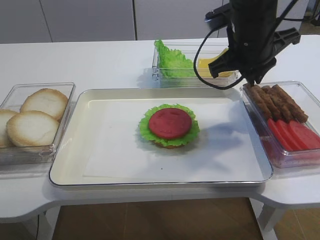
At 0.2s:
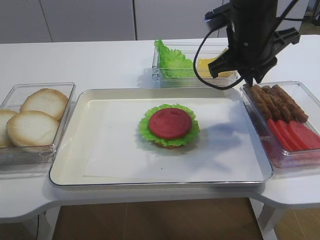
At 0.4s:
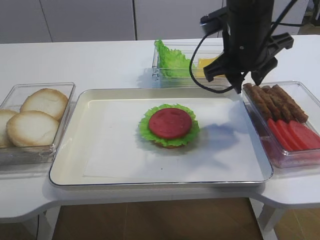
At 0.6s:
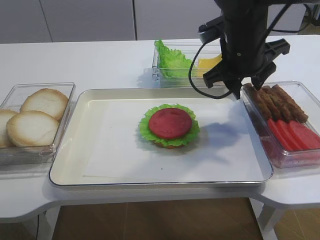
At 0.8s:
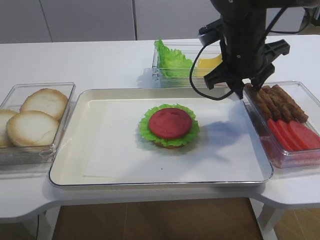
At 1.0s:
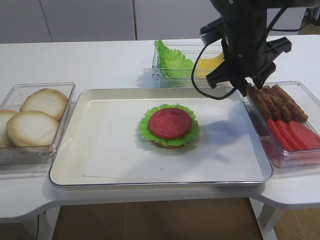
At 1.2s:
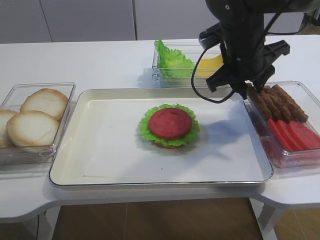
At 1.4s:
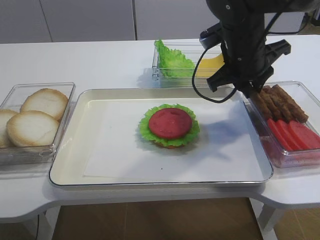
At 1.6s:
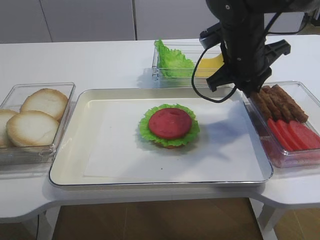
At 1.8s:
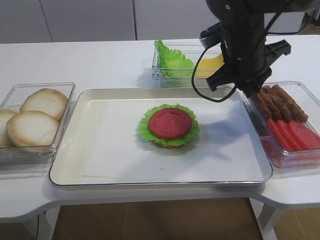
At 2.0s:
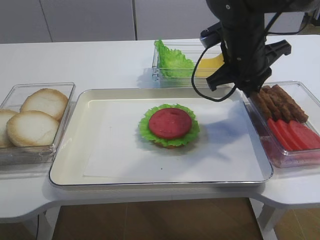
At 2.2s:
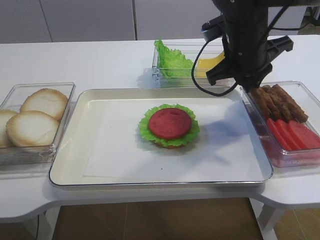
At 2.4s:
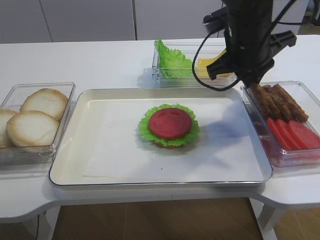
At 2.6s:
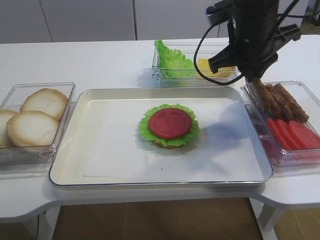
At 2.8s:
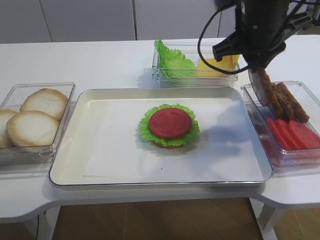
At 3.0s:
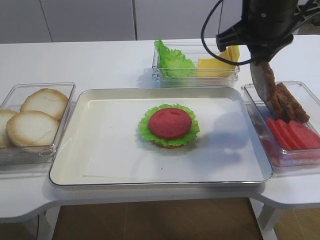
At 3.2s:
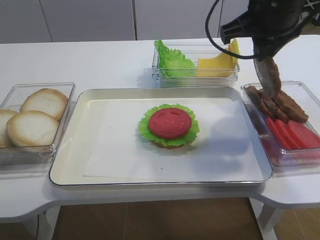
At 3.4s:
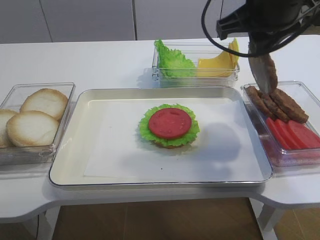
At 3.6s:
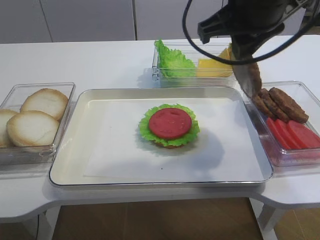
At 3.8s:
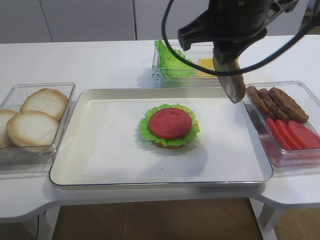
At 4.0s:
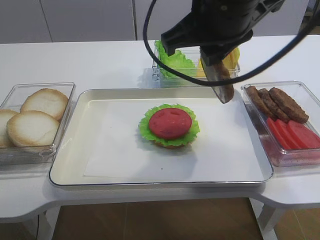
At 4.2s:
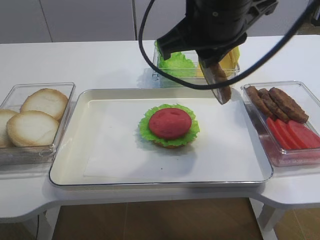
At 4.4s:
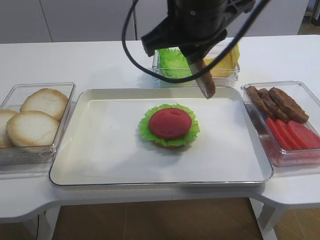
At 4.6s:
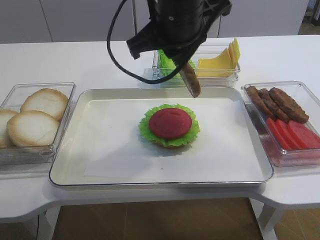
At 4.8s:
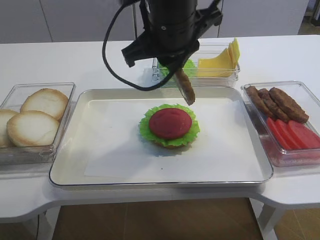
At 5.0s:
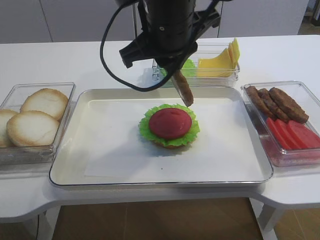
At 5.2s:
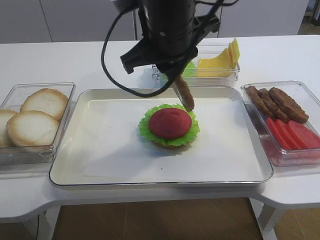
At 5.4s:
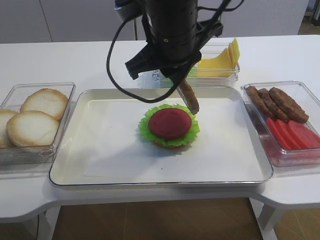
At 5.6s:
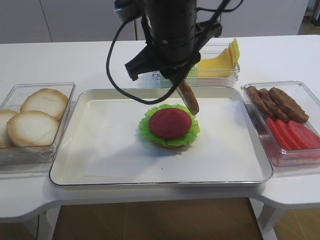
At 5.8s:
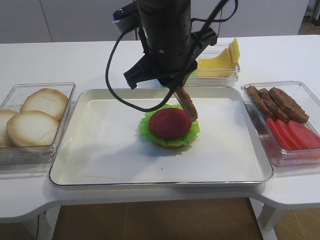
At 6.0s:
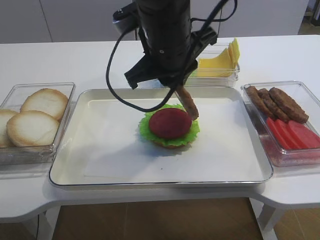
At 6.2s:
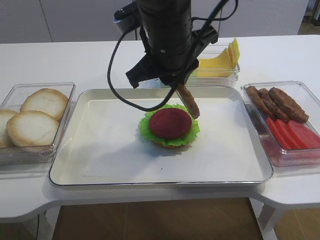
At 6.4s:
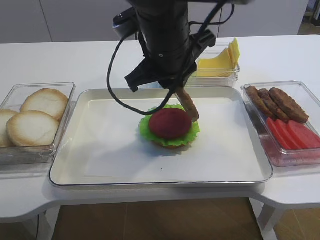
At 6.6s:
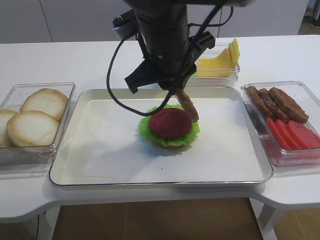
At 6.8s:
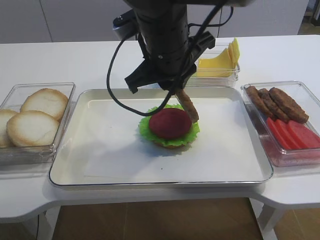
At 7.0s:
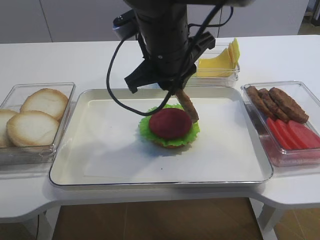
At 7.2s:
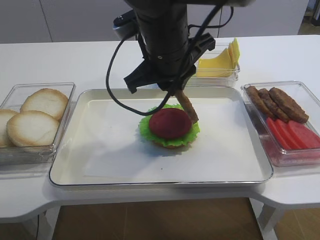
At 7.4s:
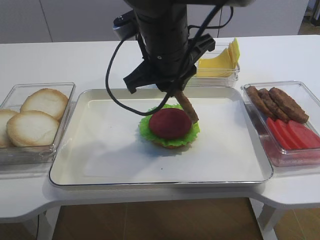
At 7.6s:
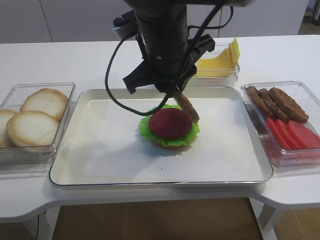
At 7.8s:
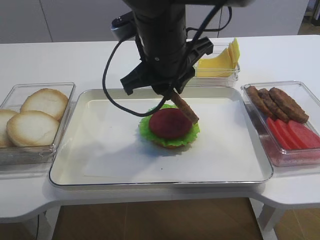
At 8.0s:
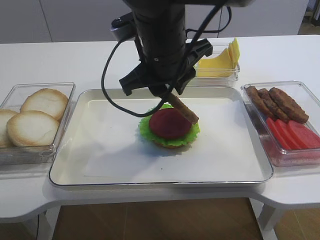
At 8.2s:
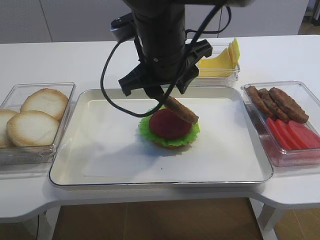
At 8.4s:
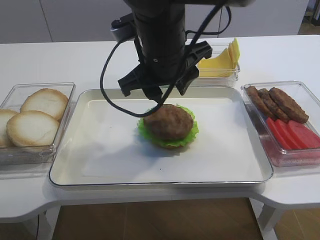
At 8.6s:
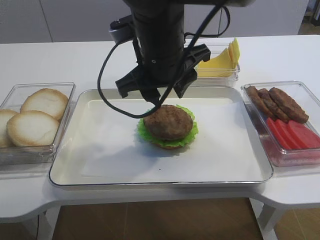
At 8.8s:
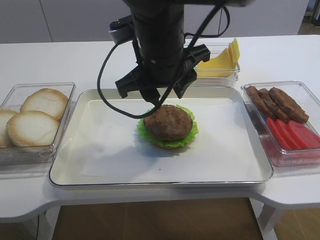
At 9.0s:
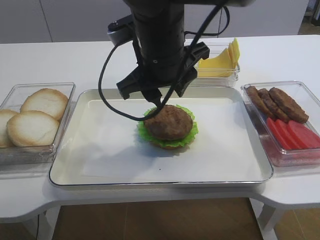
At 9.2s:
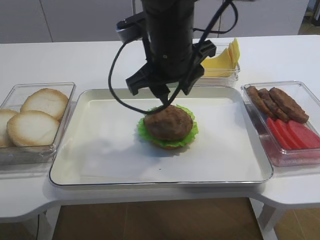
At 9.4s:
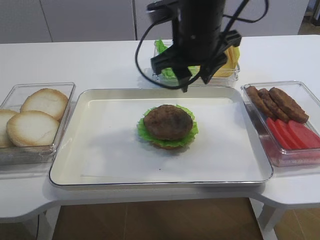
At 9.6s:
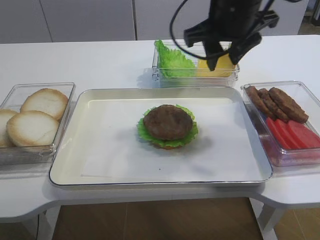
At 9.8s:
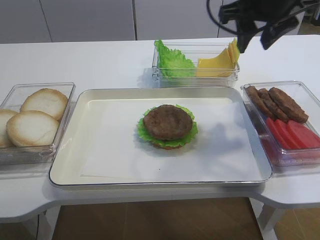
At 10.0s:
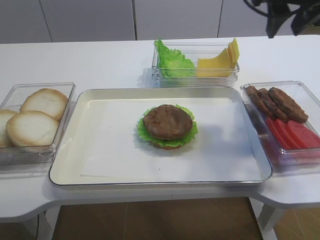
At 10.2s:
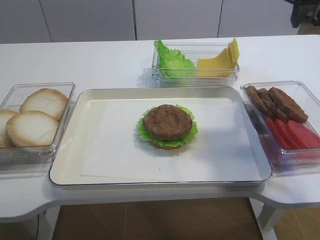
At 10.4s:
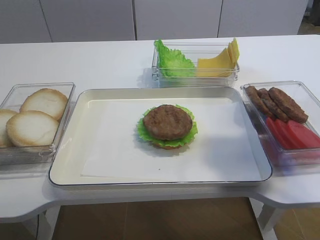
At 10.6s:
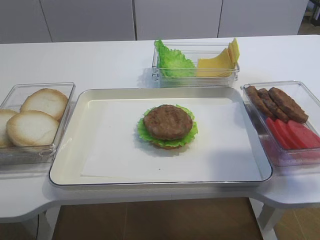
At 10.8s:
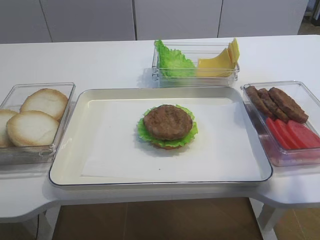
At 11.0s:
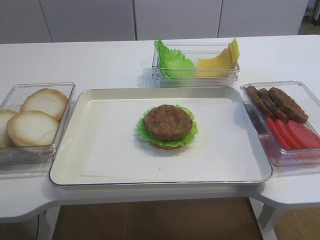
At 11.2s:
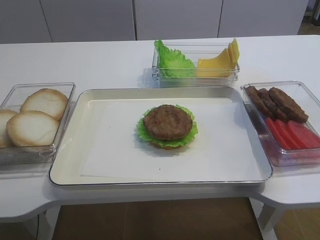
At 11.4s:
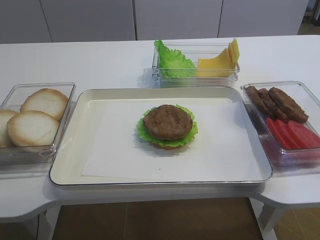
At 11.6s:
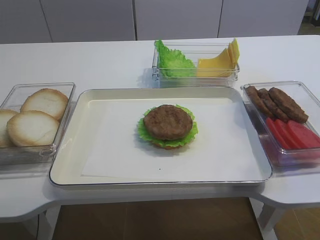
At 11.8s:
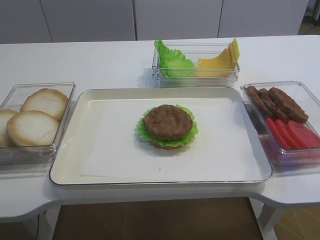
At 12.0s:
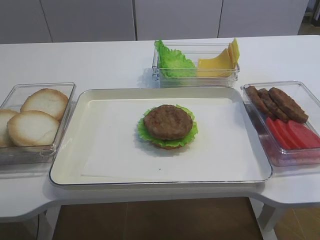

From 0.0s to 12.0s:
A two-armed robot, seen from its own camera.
Step, from 0.0s to 3.4s: Pick up the cutlet with the right gripper.
Step, from 3.6s to 9.4s: Place the cutlet on the tomato slice with the right gripper.
From 0.0s to 1.6s: The right gripper opens, then closes once more.
From 1.6s to 3.0s: The right gripper goes approximately 5 cm upward.
From 3.0s to 4.4s: The right gripper moves to the left and backward, about 10 cm.
From 4.4s to 6.0s: The right gripper travels downward by approximately 5 cm.
From 6.0s to 7.6s: Neither gripper changes place.
From 7.6s to 9.0s: The right gripper opens.
From 9.0s to 10.4s: The right gripper moves to the right and upward, about 25 cm.
From 10.4s to 12.0s: The right gripper heads backward, covering roughly 30 cm.

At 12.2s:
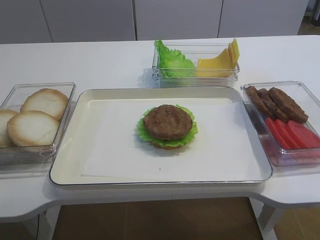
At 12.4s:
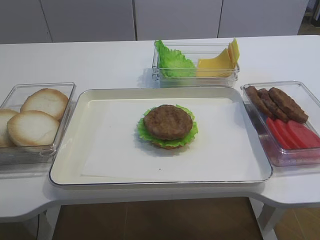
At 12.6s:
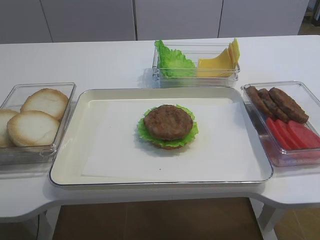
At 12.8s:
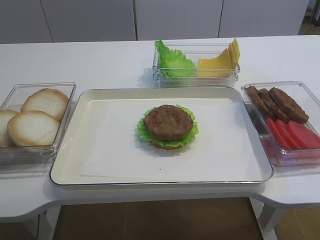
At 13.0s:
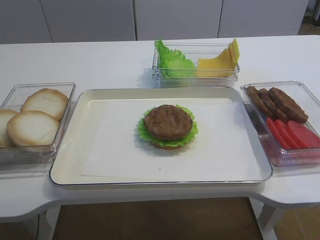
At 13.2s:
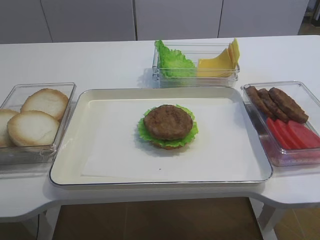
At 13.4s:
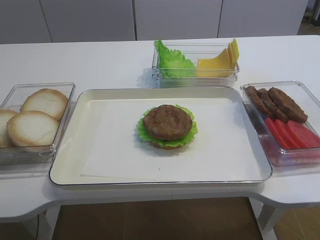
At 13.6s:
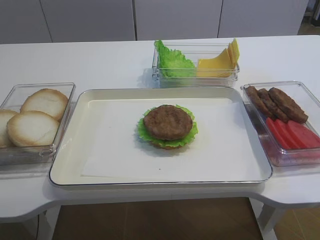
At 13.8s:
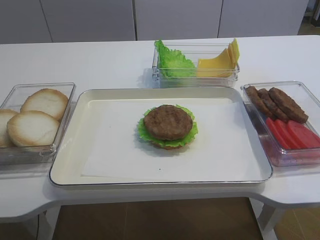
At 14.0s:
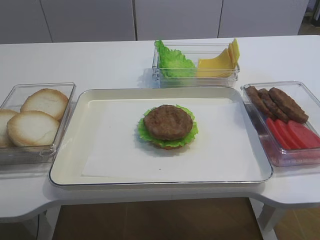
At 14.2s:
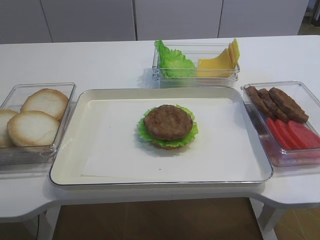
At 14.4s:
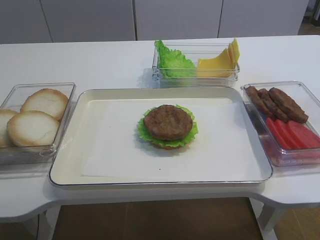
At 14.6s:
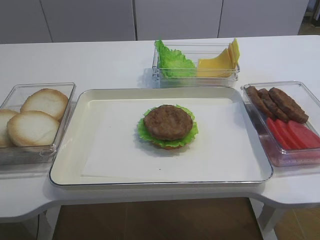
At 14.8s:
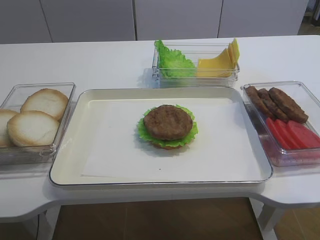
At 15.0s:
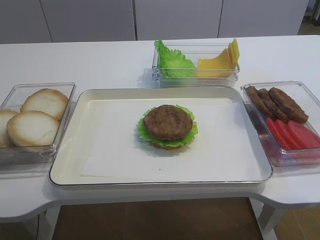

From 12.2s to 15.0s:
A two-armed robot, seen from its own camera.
From 13.6s to 15.0s: Neither gripper changes place.

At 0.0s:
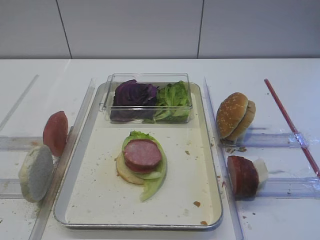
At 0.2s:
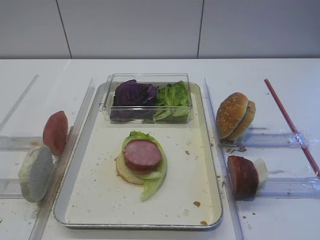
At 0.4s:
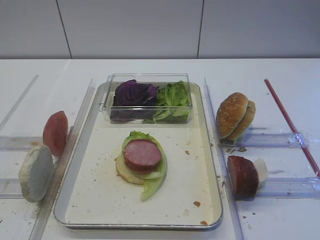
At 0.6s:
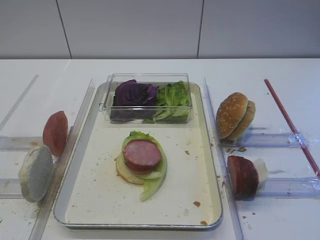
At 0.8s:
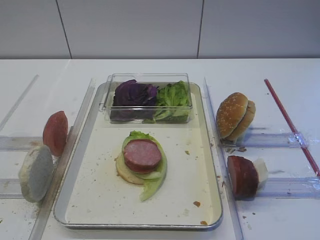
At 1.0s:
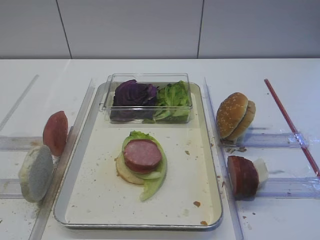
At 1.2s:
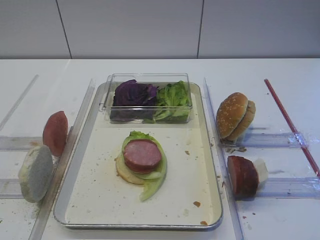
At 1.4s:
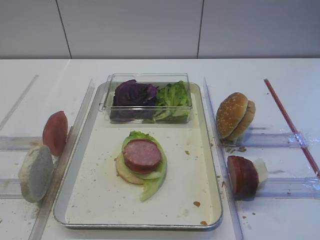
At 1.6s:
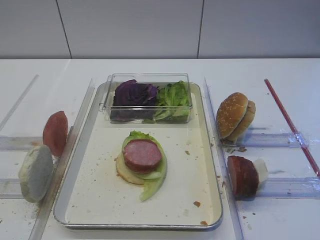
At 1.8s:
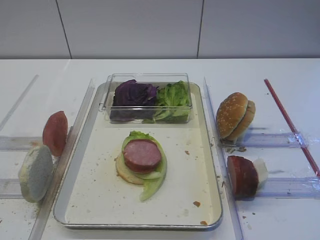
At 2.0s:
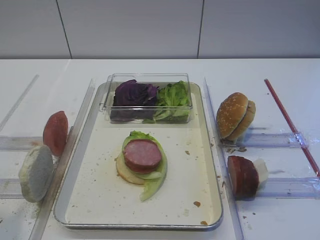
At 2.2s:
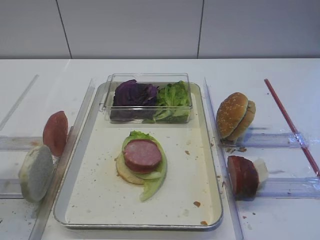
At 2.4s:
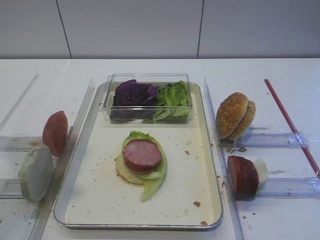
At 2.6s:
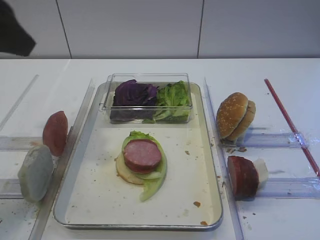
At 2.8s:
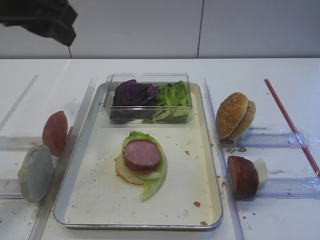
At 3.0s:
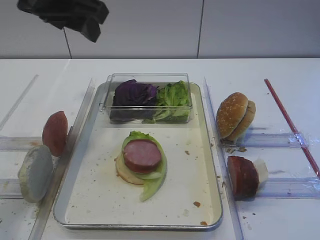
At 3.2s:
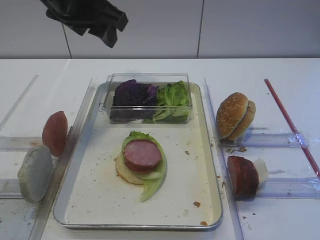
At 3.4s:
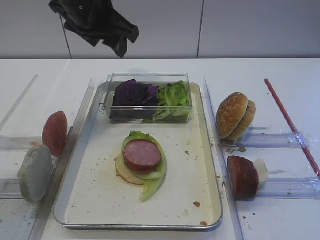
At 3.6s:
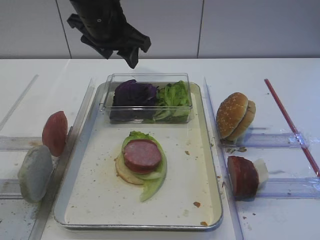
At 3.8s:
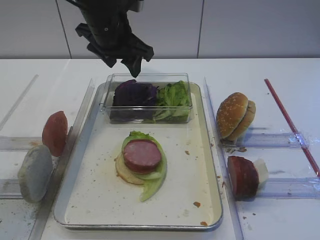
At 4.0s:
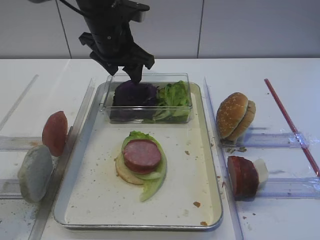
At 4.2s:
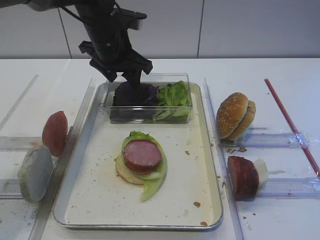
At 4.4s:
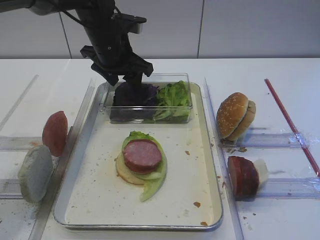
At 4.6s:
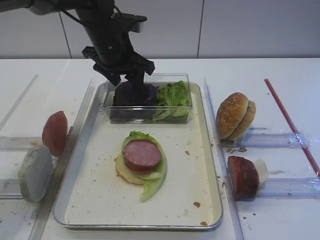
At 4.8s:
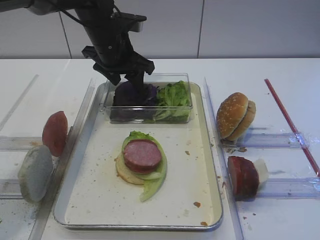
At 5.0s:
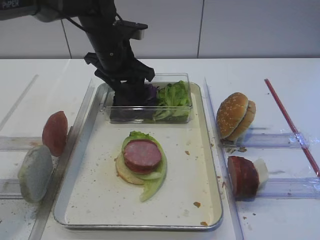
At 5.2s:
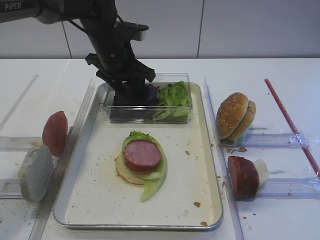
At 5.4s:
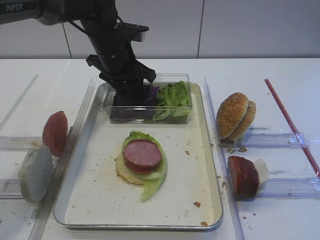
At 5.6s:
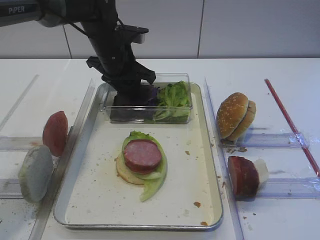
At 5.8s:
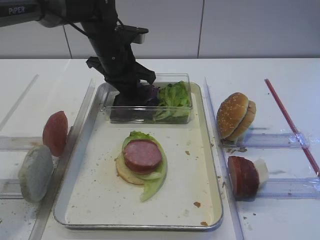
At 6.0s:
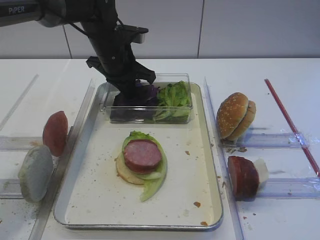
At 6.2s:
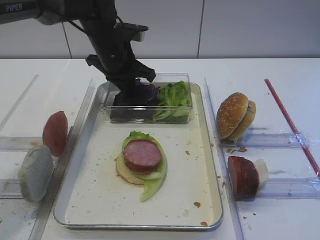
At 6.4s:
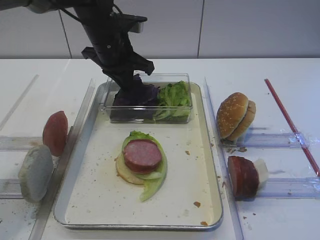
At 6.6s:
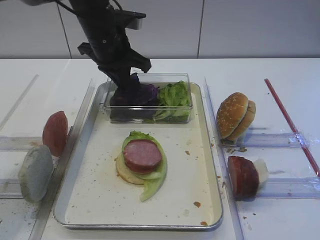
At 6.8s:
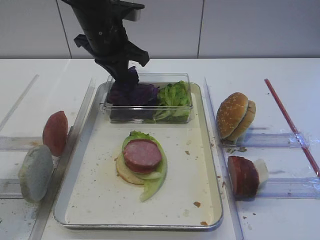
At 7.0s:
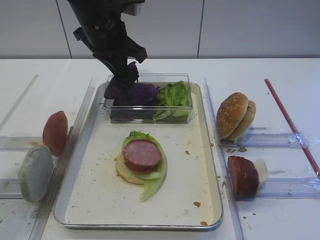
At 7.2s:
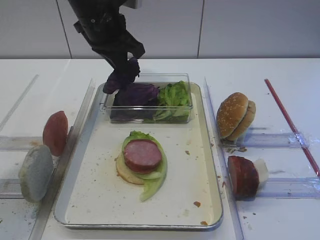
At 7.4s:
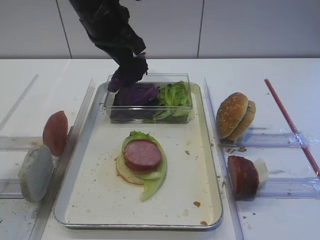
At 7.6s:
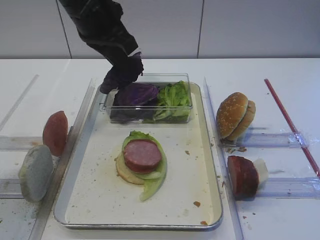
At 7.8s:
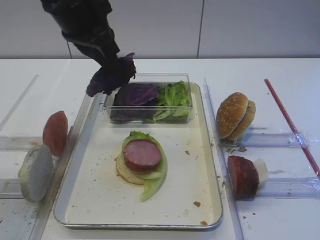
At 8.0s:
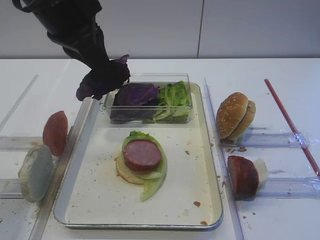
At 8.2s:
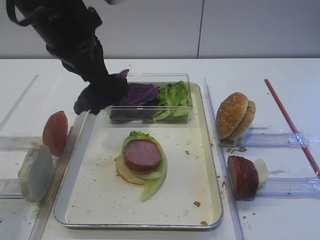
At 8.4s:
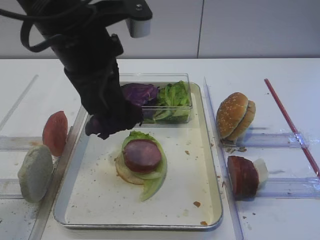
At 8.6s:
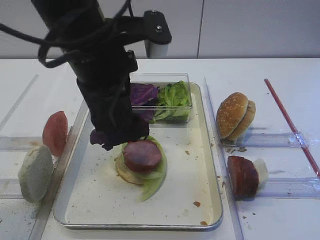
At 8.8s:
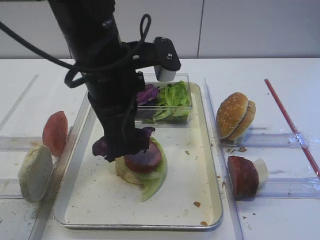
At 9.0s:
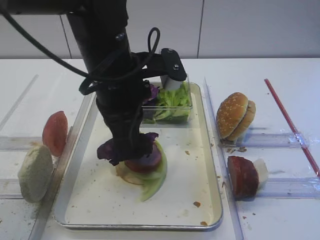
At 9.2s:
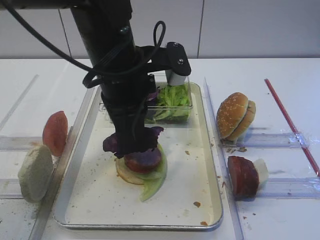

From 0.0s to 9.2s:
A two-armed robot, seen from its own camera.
Step, from 0.0s to 7.2s: Pick up the purple cabbage with the left gripper.
From 1.6s to 3.0s: The left gripper moves forward and to the right, roughly 35 cm.
From 3.0s to 4.6s: The left gripper moves downward, forward and to the right, approximately 20 cm.
From 4.6s to 6.2s: The left gripper closes its fingers.
From 6.2s to 7.6s: The left gripper shifts about 15 cm upward and backward.
From 7.6s to 9.2s: The left gripper goes about 10 cm backward, to the right and downward.
